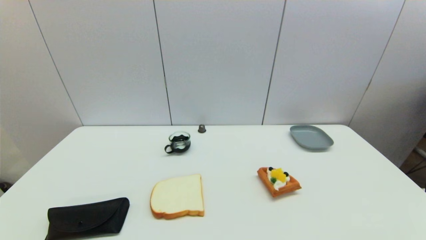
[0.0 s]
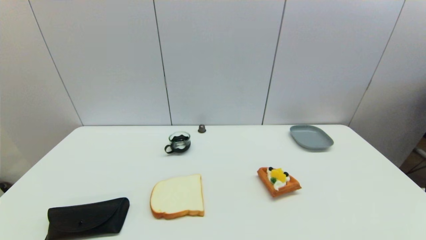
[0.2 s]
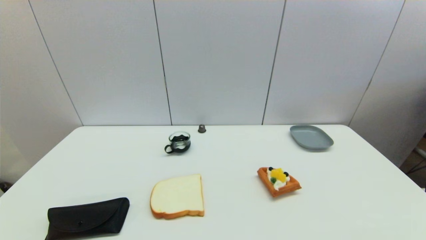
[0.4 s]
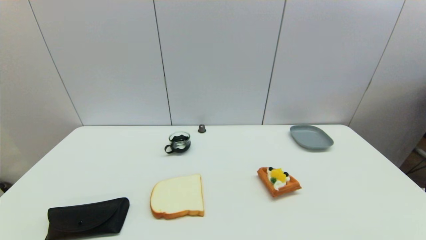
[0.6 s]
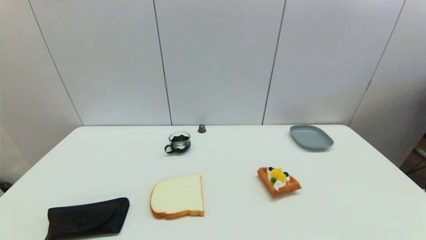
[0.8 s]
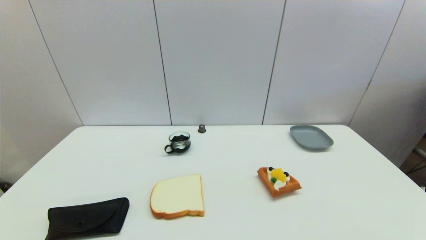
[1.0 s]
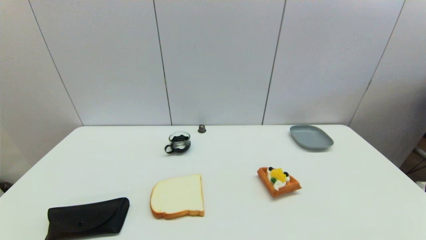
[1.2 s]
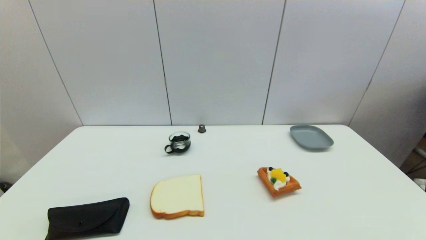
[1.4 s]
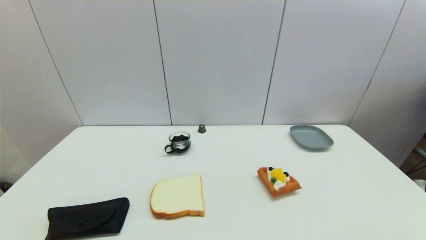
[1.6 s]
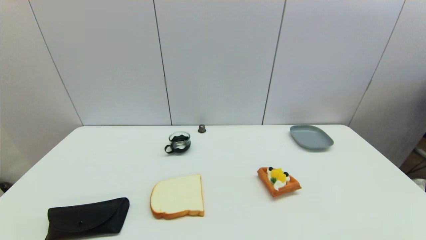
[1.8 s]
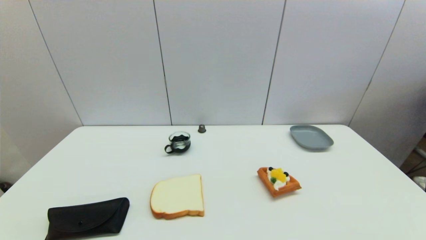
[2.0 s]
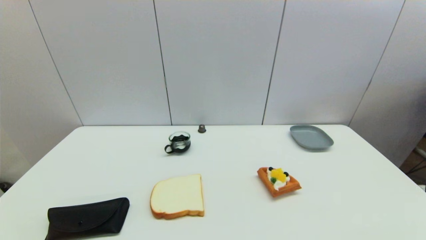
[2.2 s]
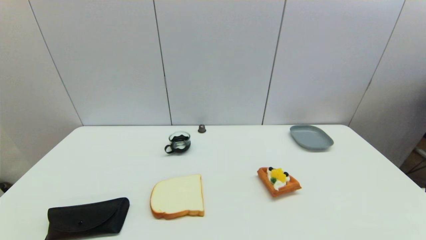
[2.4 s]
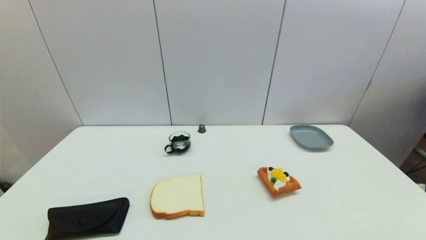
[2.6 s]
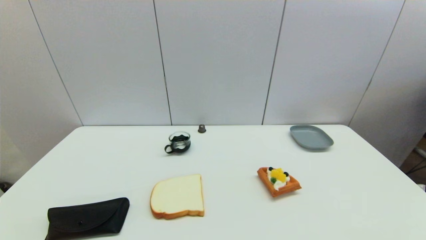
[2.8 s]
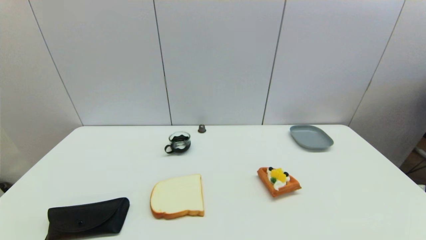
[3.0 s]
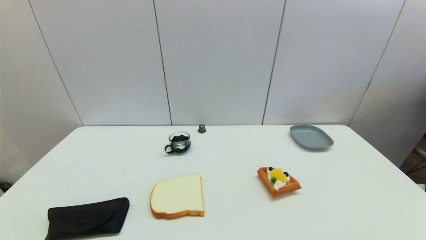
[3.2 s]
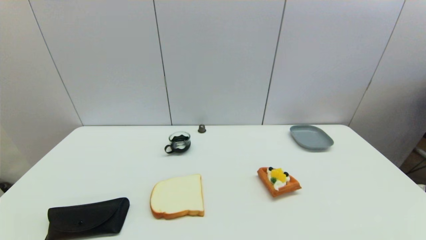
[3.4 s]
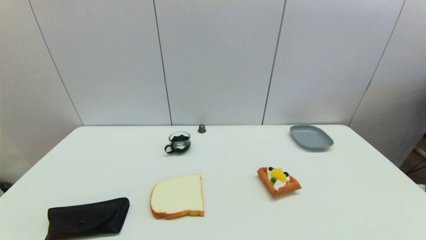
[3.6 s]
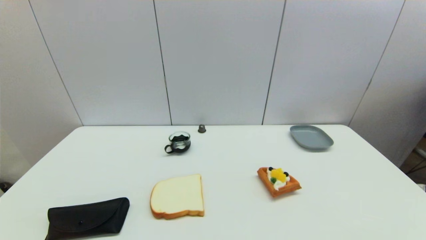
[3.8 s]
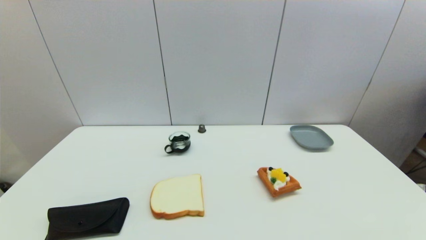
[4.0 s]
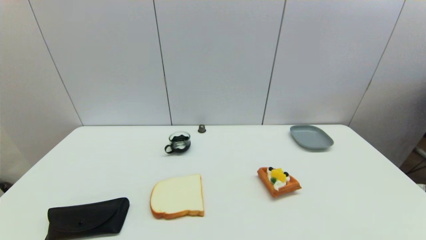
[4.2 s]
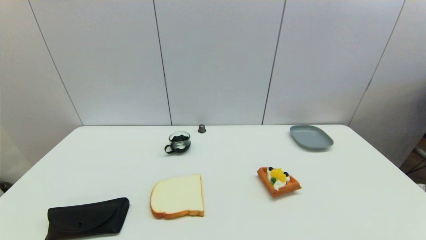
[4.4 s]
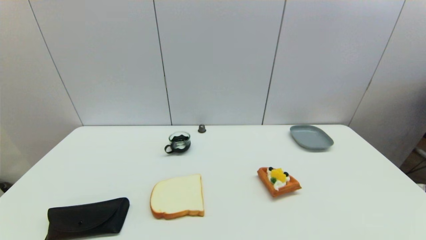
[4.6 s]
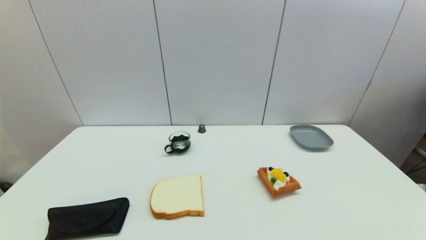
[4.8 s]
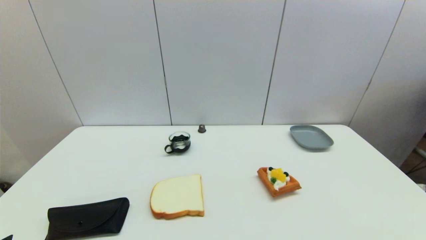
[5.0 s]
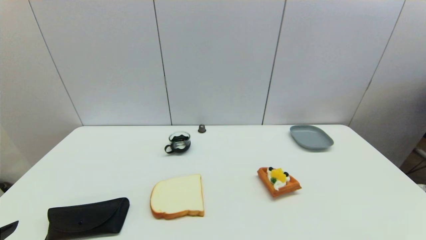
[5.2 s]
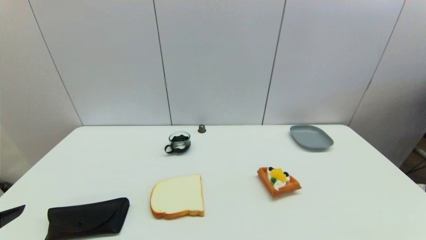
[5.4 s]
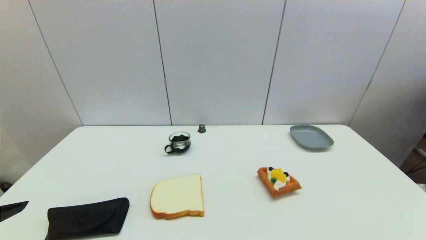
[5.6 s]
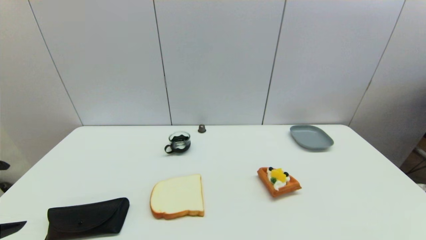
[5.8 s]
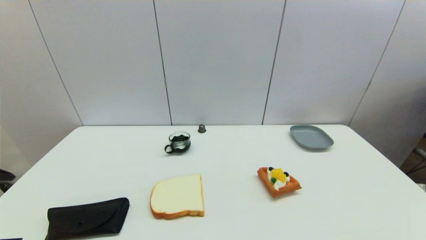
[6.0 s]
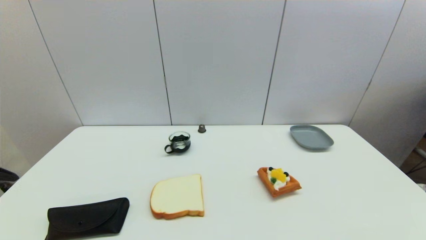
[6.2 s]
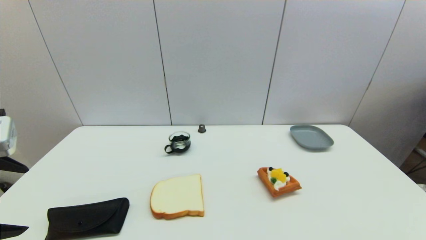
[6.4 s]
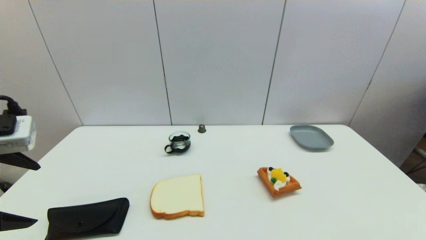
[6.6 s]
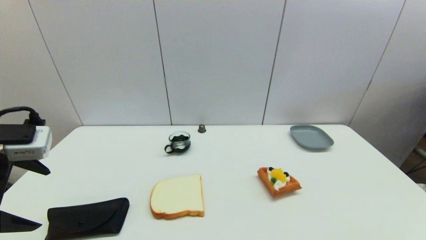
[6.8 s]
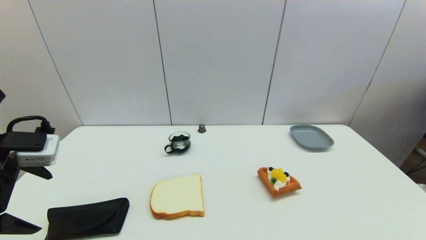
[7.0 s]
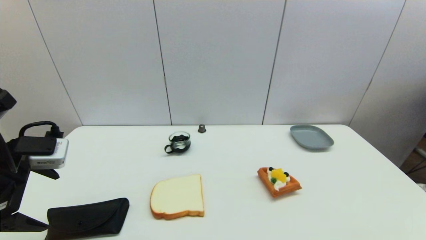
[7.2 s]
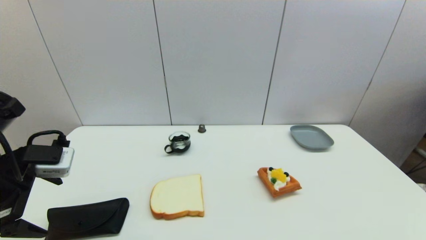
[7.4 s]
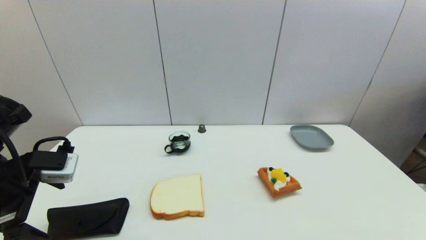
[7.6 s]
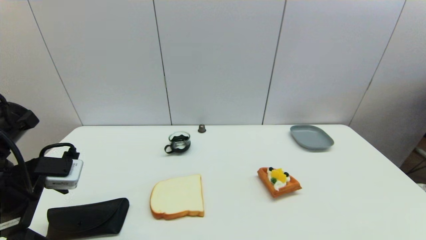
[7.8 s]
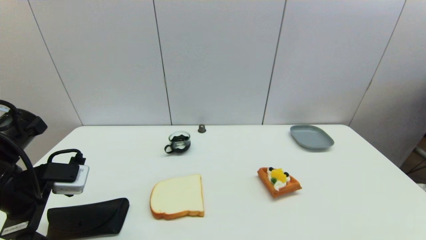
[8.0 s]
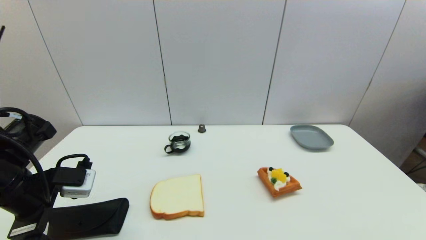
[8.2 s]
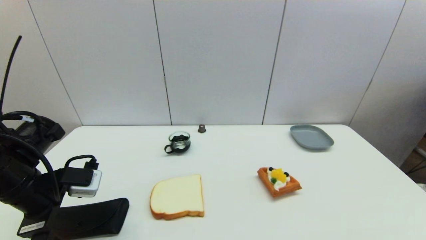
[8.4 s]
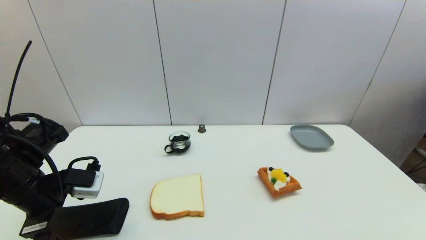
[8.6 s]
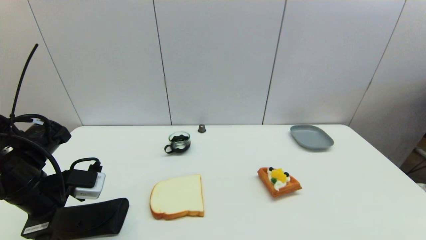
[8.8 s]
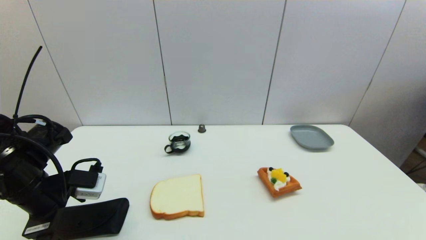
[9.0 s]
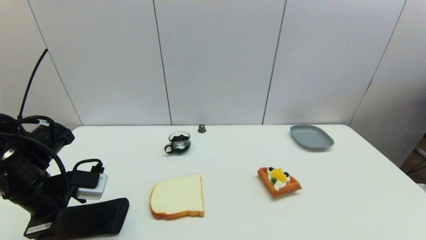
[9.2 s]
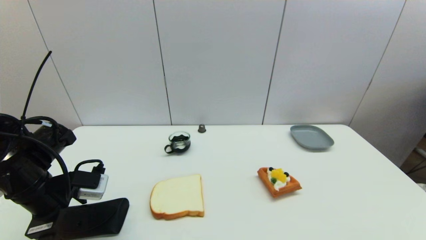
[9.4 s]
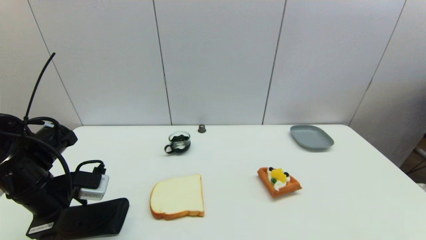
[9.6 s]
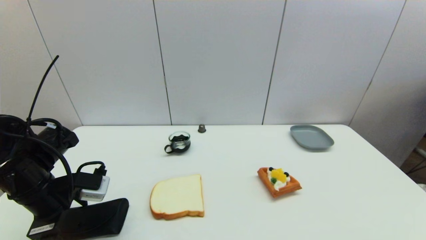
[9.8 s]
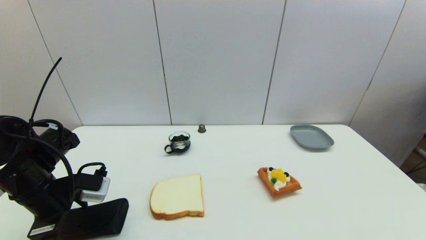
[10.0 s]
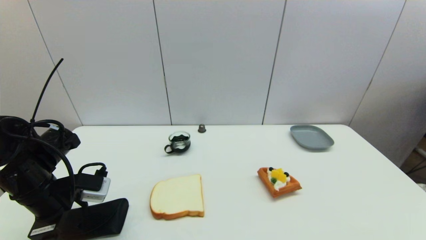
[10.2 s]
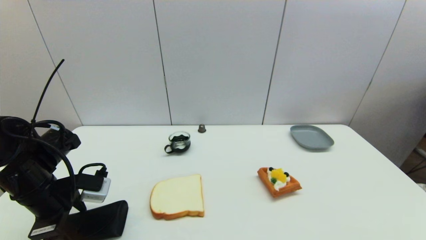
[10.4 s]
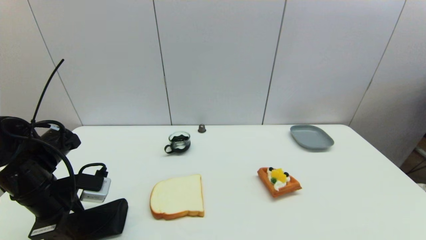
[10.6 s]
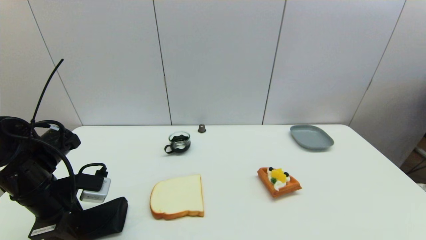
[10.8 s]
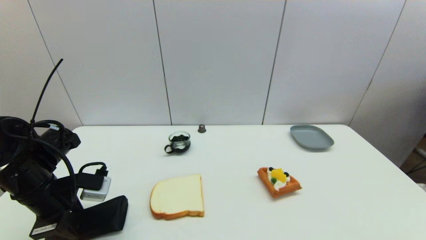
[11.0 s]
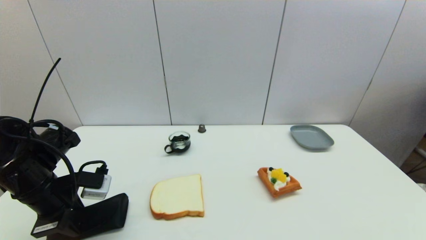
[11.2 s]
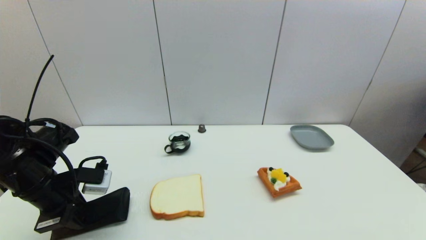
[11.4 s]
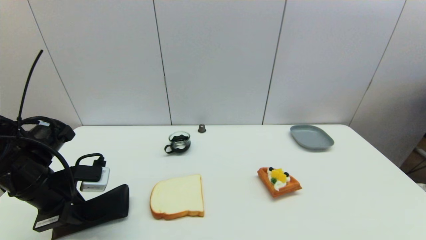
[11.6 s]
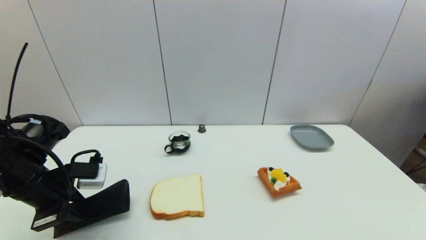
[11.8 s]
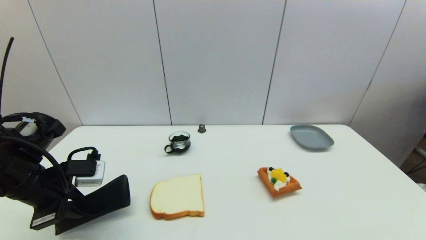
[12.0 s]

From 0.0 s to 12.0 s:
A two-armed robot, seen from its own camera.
Step, from 5.0 s to 10.8 s: Grasp the glasses case with left gripper.
From 0.0 s to 1.6 s: Both grippers stay put.
From 6.0 s to 7.6 s: The left gripper heads forward and downward, covering roughly 10 cm.
From 7.6 s to 9.0 s: The left gripper shifts roughly 5 cm downward.
From 9.0 s to 10.4 s: The grippers make only small movements.
From 10.4 s to 12.0 s: The left gripper closes.

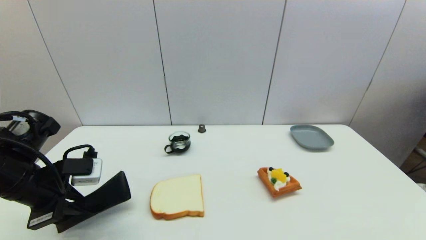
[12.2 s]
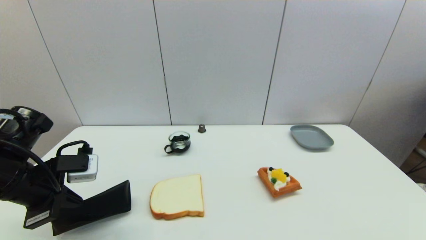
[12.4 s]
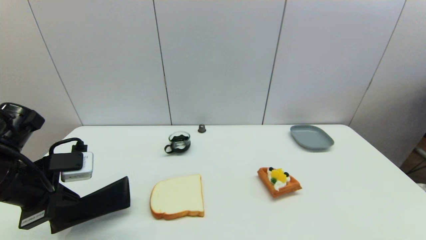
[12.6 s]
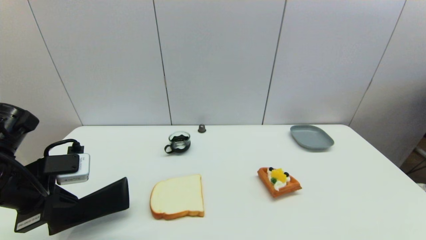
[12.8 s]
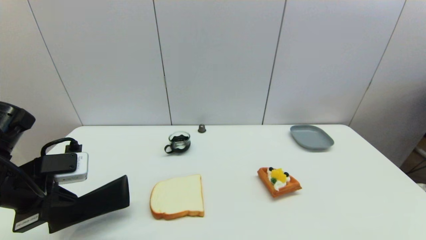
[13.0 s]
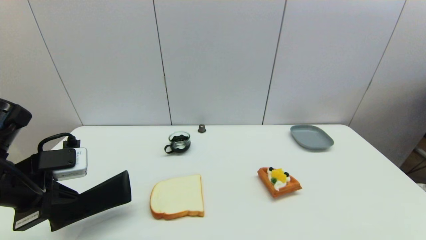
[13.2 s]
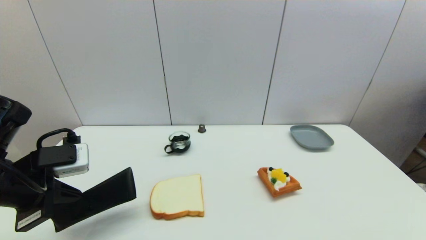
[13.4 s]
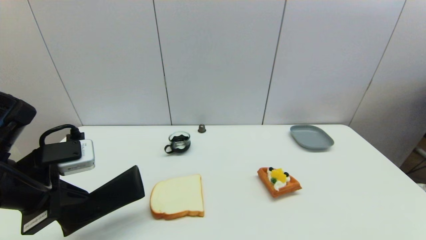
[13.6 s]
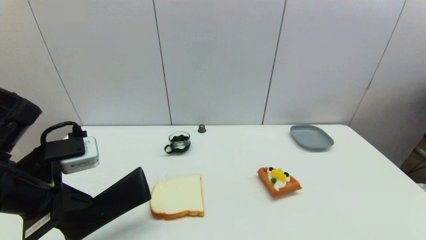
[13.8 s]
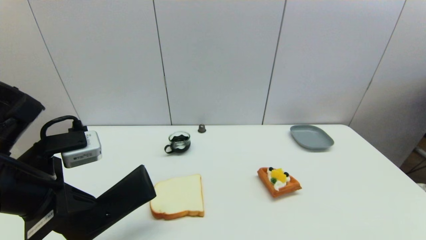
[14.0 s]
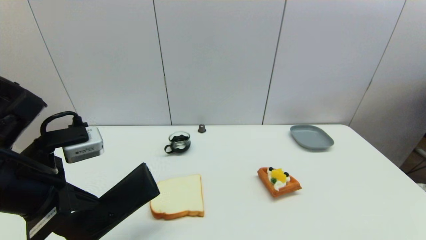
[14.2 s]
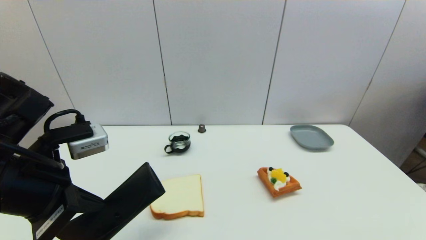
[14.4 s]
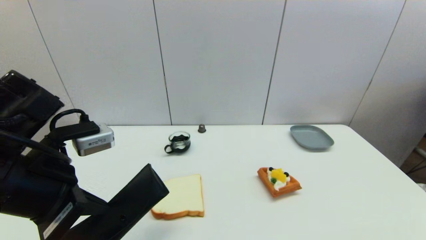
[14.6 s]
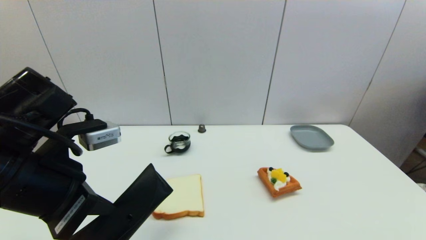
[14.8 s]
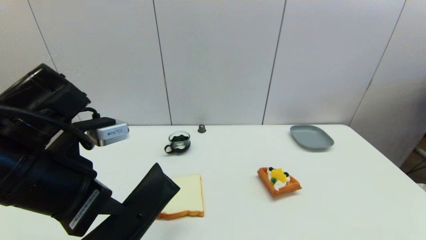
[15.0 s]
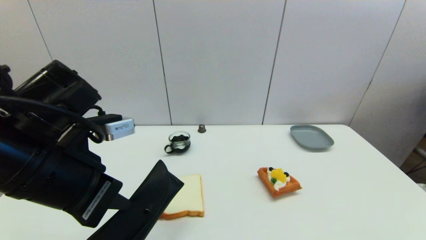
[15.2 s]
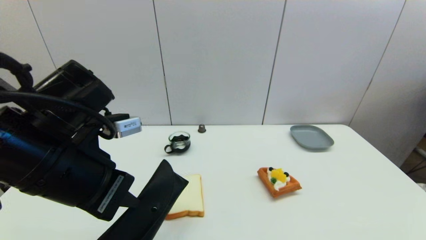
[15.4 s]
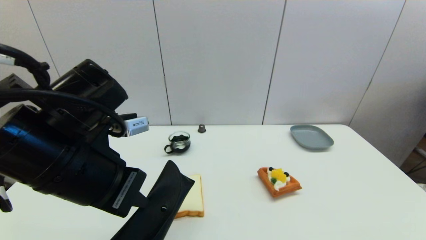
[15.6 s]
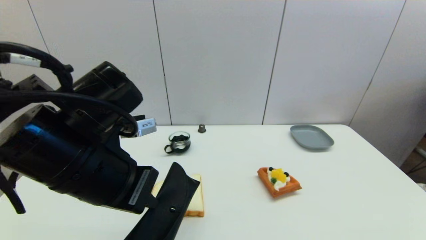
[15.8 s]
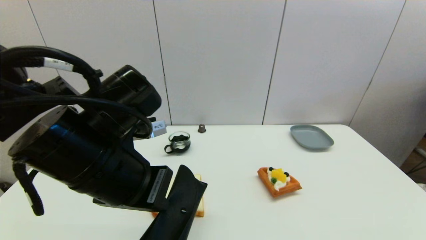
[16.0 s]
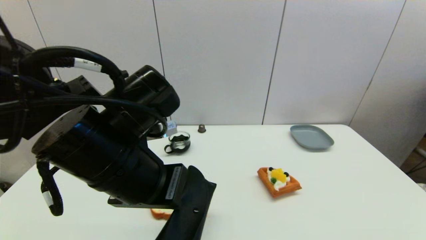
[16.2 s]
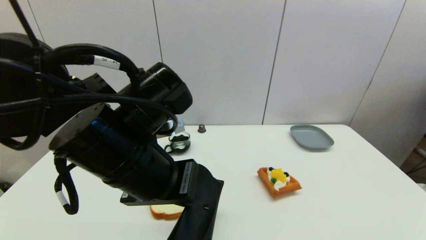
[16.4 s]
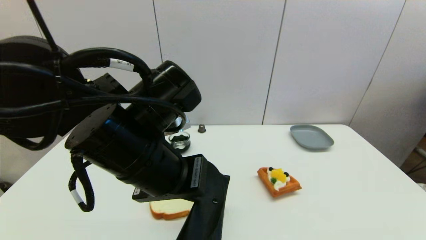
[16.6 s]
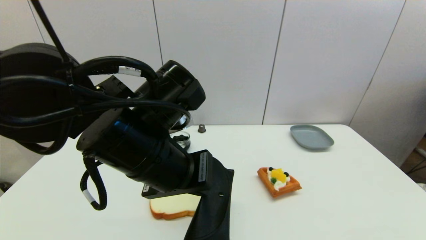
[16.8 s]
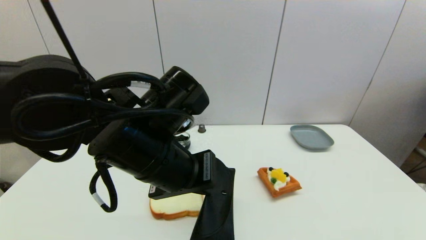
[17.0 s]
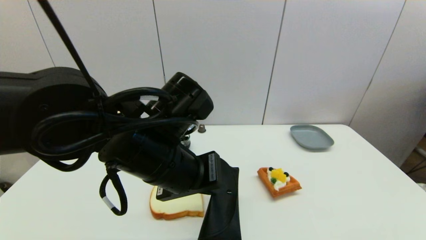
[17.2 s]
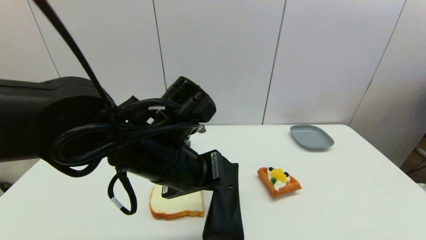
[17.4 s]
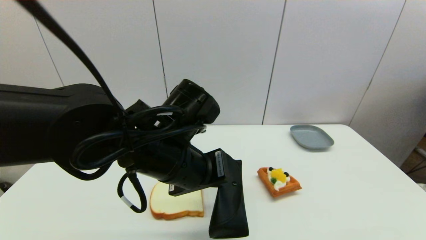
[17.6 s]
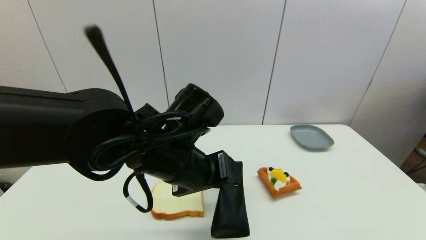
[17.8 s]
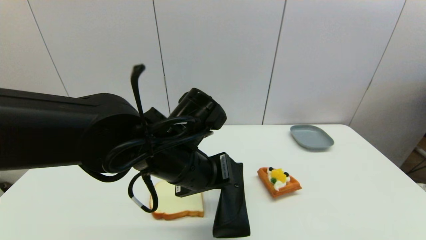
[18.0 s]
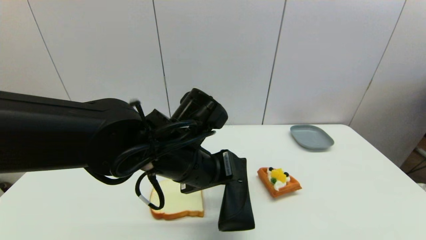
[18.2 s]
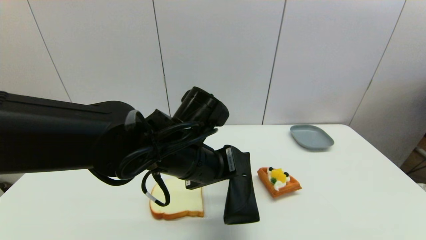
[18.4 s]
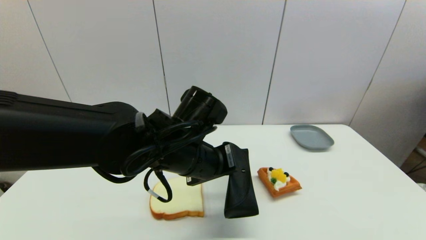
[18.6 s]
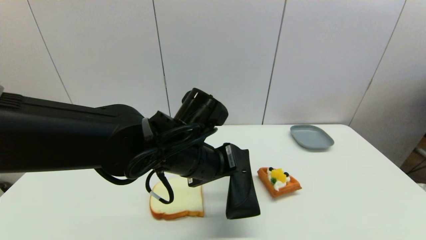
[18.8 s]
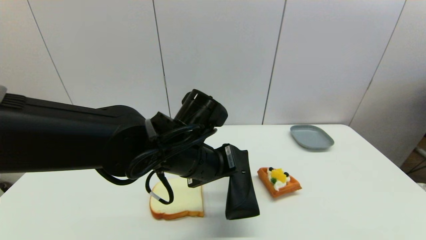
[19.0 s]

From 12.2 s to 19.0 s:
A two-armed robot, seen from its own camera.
From 12.2 s to 13.6 s: The left gripper shifts by roughly 5 cm.
From 13.6 s to 15.0 s: The left gripper moves to the right, about 5 cm.
From 15.0 s to 16.2 s: The left gripper travels to the right by roughly 10 cm.
From 16.2 s to 17.6 s: The left gripper goes some 5 cm to the right.
From 17.6 s to 19.0 s: There are only small adjustments of the grippers.
